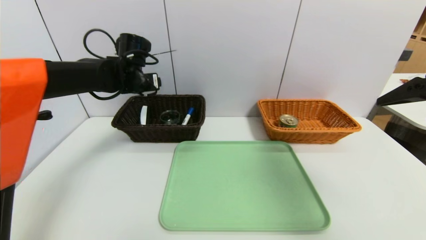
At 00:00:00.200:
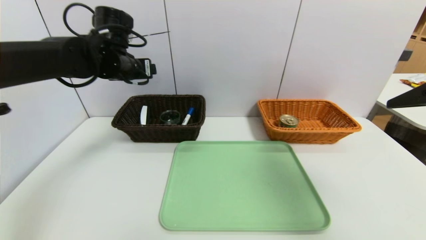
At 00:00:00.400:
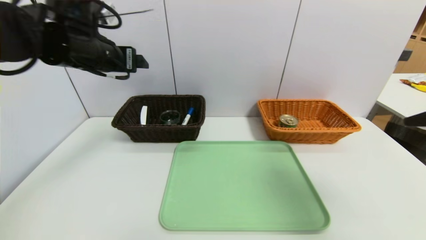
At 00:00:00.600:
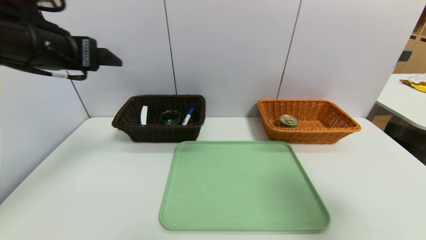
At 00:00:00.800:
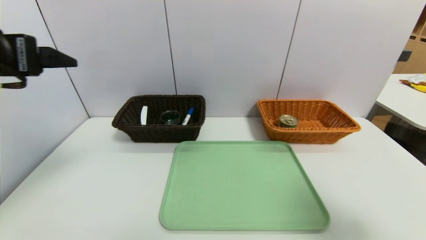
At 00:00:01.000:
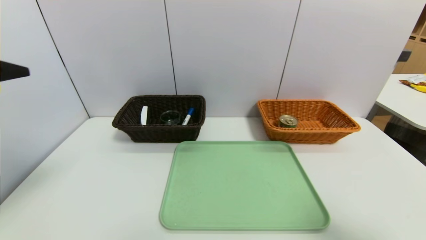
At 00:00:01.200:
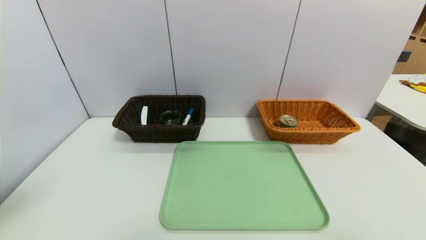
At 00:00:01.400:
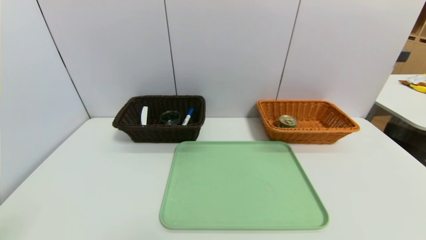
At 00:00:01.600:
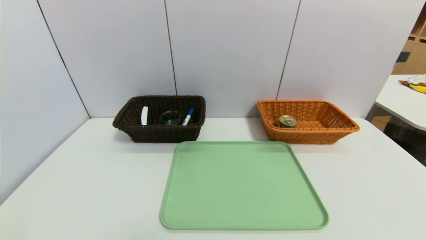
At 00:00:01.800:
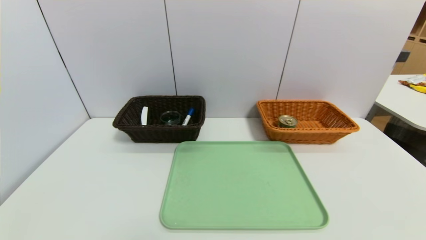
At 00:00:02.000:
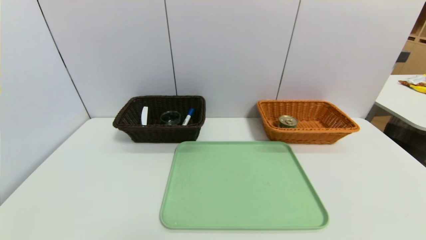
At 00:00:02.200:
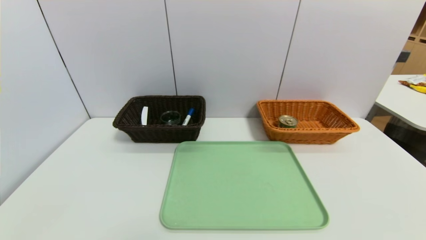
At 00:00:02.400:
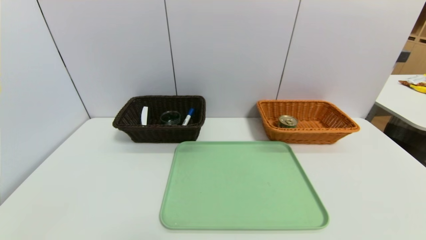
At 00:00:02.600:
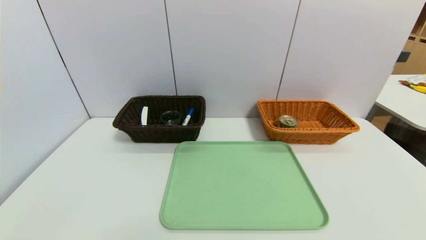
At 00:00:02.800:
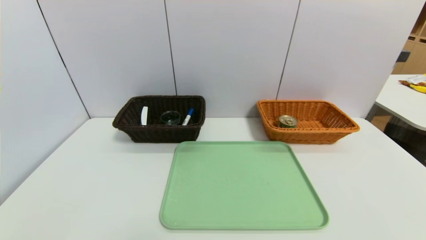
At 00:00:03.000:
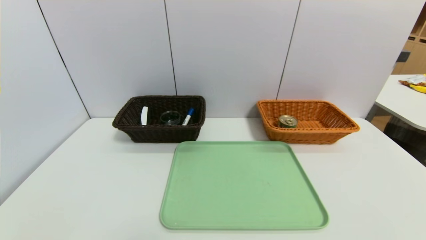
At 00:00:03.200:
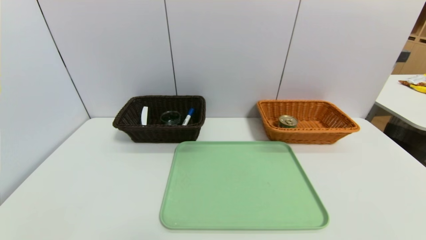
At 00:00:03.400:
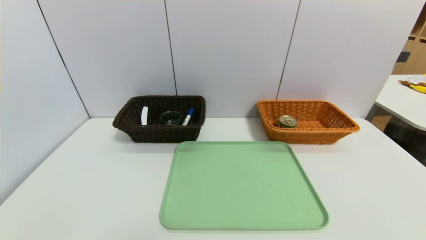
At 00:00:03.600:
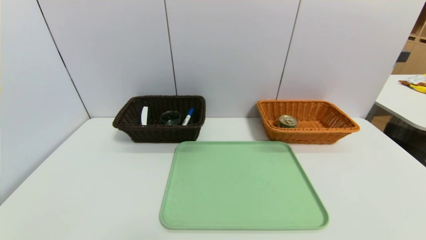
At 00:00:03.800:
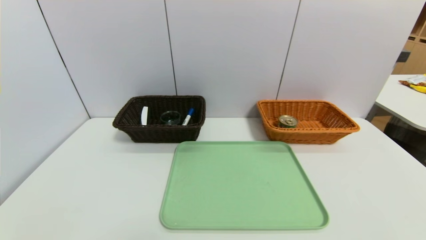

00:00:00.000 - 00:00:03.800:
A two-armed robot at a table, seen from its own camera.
Task of the whole recording: place the food in the right basket with the right gripper, and place the non food items in the left basket with the left gripper.
00:00:00.000 - 00:00:01.200: The left gripper is displaced backward by some 35 cm, while the right gripper travels backward and downward by approximately 20 cm.
00:00:01.200 - 00:00:02.600: The left gripper is displaced downward by about 25 cm.
